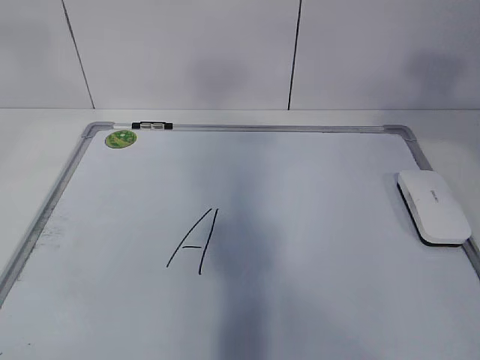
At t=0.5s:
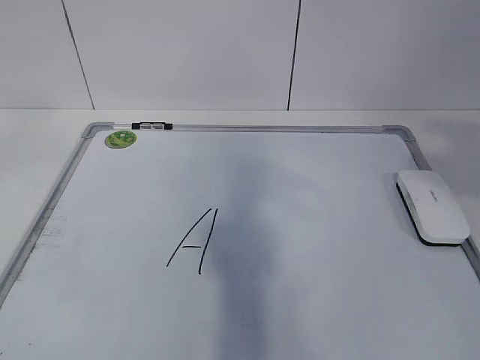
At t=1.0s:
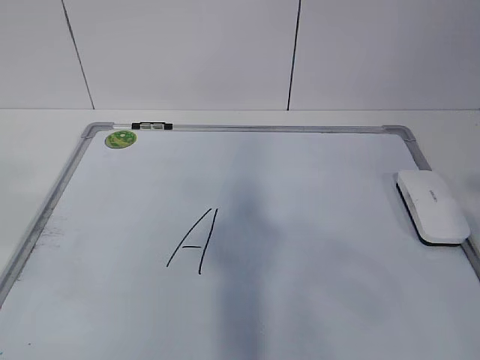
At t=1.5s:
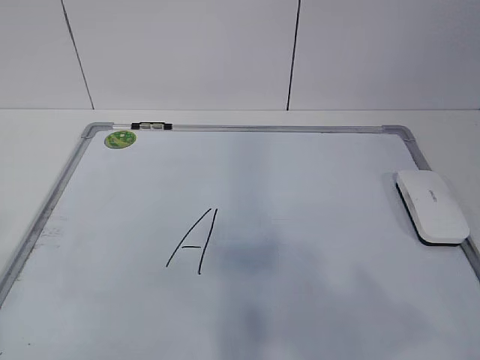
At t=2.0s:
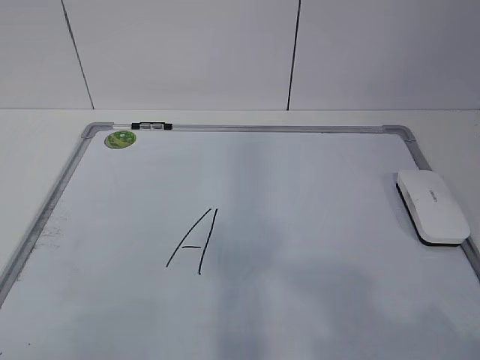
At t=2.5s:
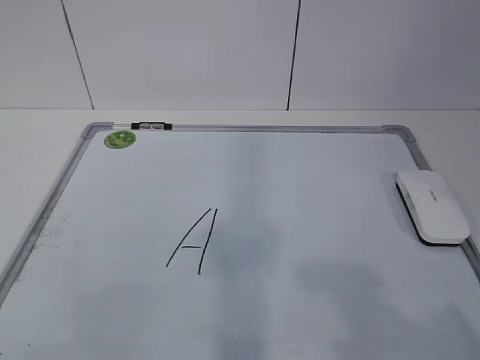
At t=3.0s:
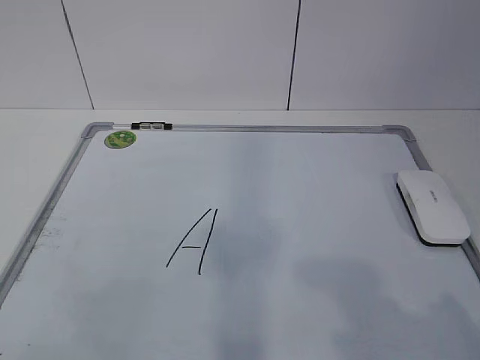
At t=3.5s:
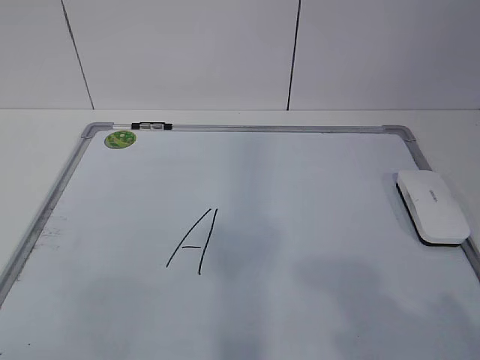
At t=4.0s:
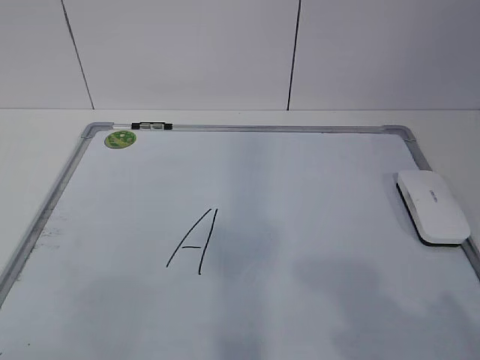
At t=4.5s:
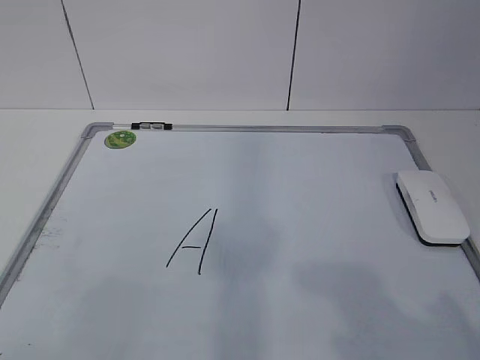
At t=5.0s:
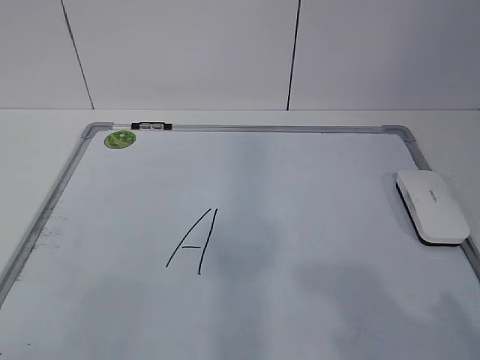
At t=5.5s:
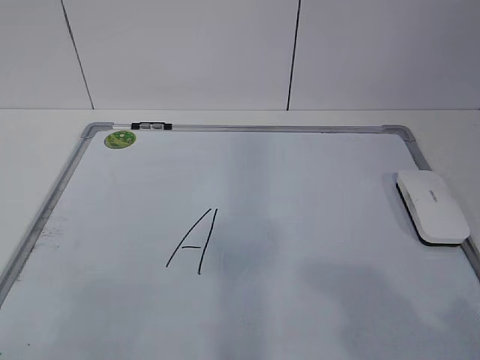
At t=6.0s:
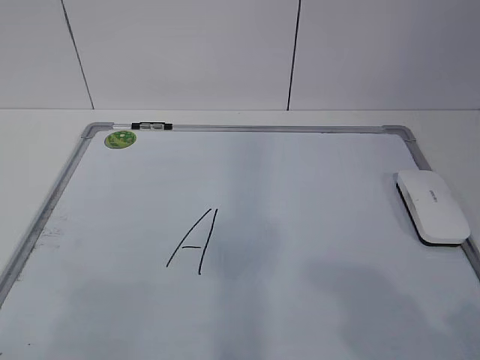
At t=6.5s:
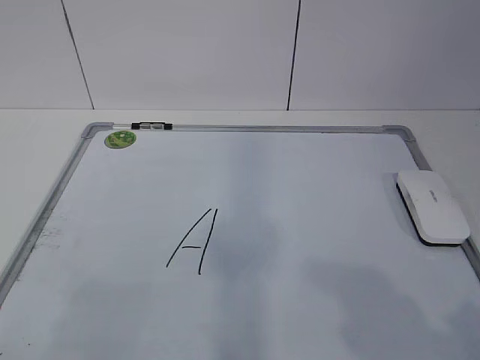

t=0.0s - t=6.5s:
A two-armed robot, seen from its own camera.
Task of the whole recording: pick up the eraser on the blackboard and erase the letter "a".
t=0.0s - t=2.0s: The grippers both shift backward and downward by roughly 30 cm.

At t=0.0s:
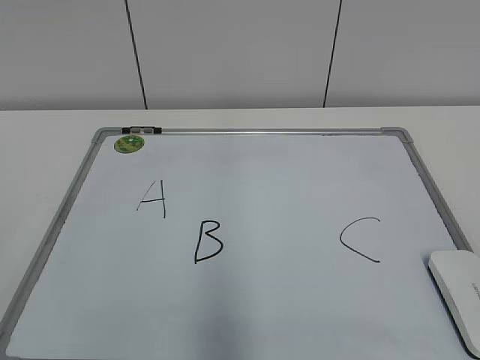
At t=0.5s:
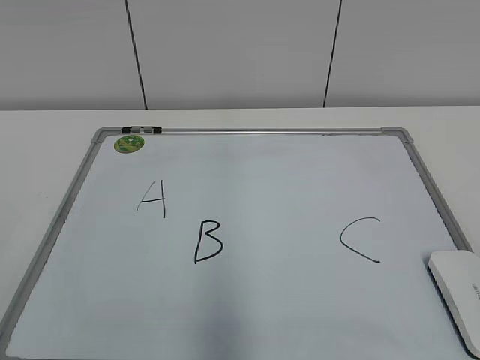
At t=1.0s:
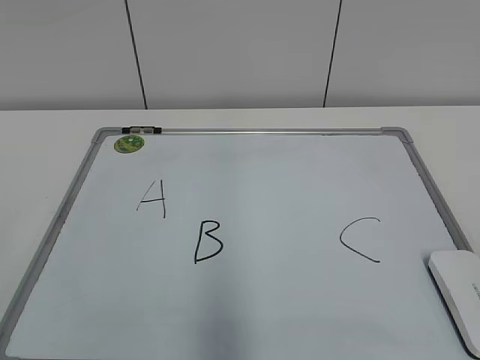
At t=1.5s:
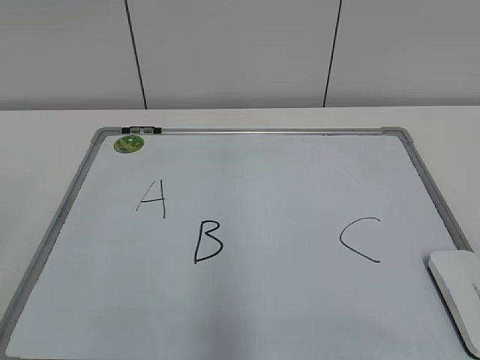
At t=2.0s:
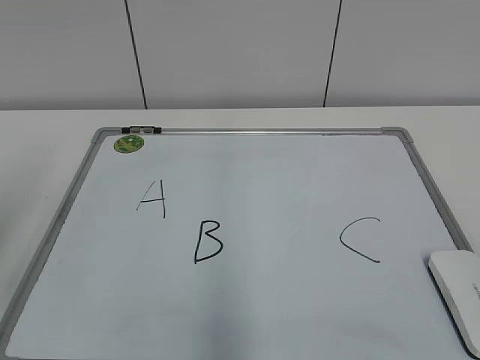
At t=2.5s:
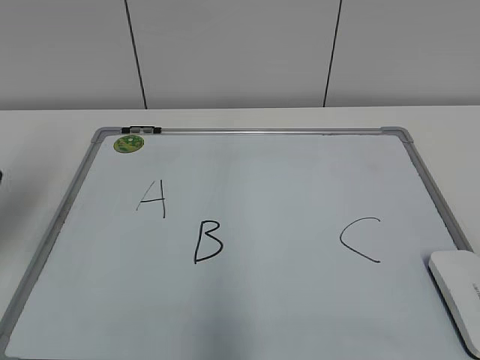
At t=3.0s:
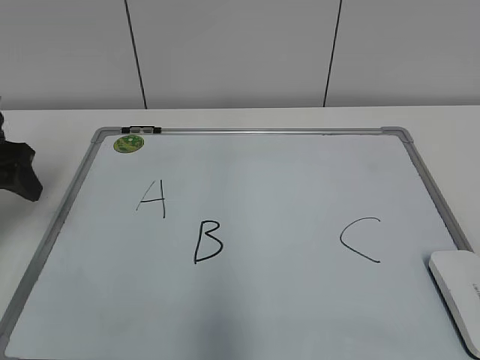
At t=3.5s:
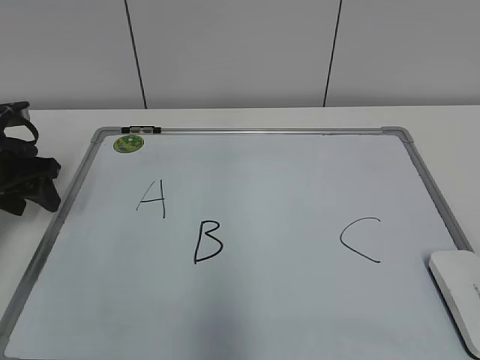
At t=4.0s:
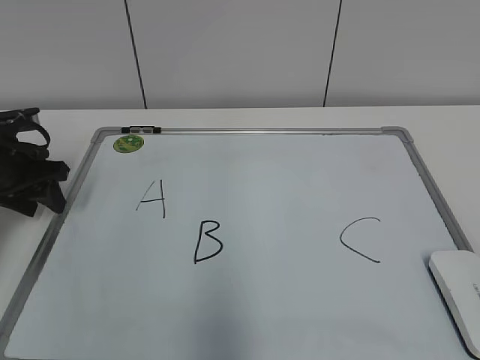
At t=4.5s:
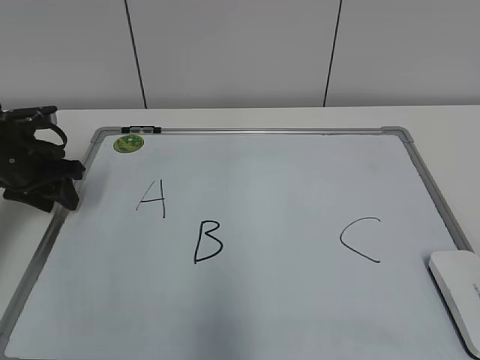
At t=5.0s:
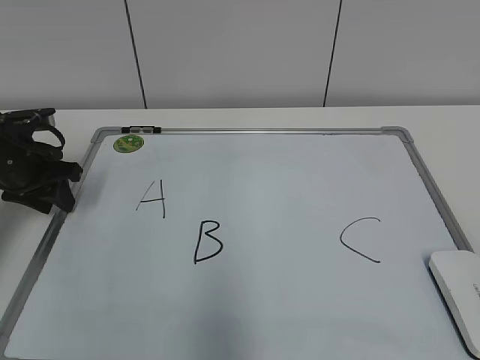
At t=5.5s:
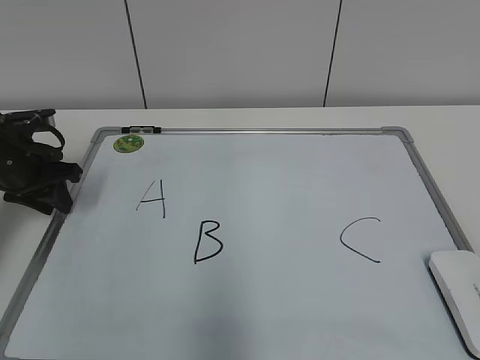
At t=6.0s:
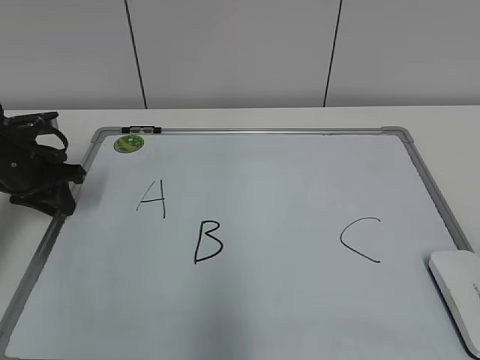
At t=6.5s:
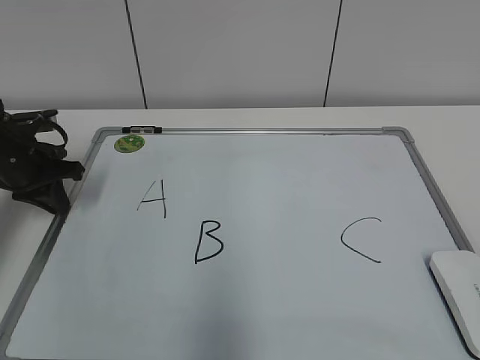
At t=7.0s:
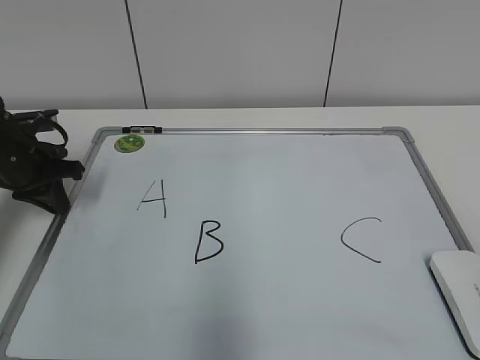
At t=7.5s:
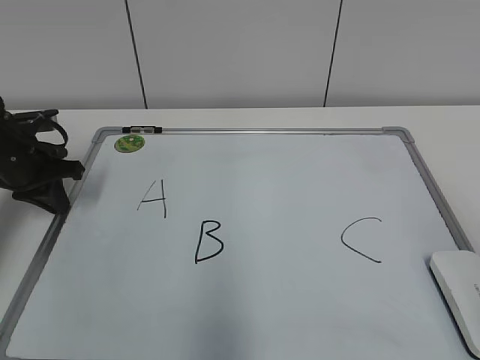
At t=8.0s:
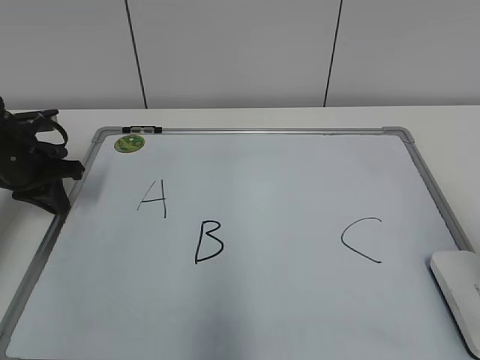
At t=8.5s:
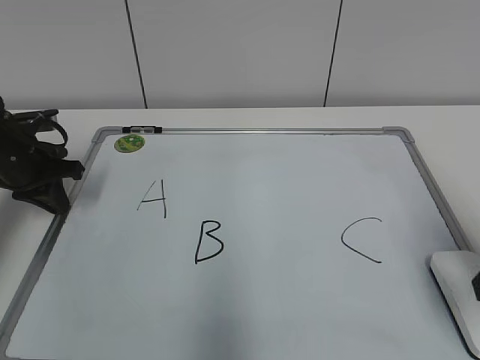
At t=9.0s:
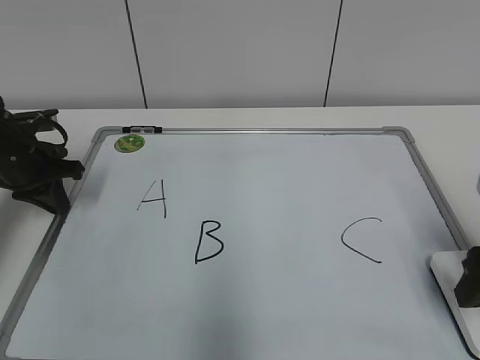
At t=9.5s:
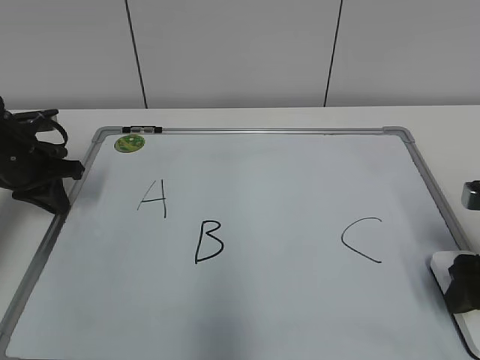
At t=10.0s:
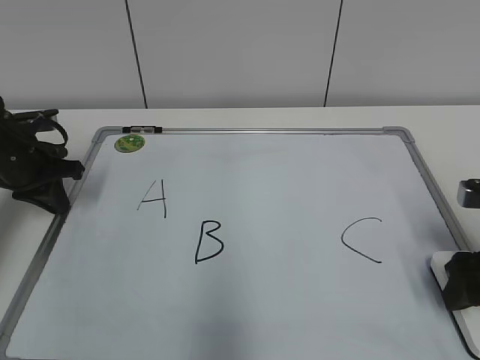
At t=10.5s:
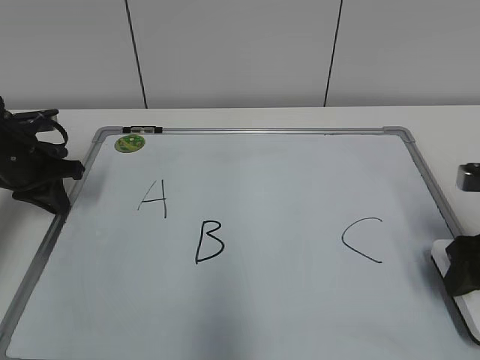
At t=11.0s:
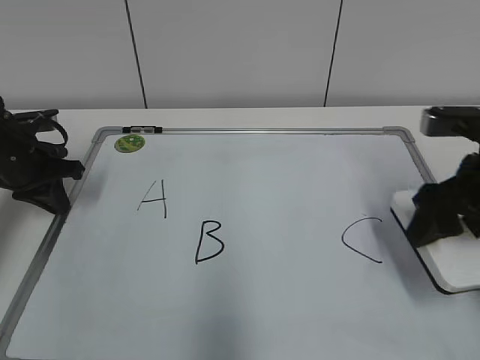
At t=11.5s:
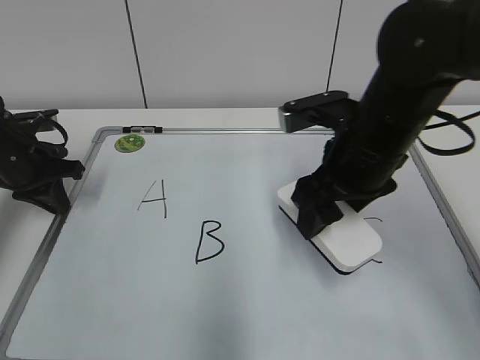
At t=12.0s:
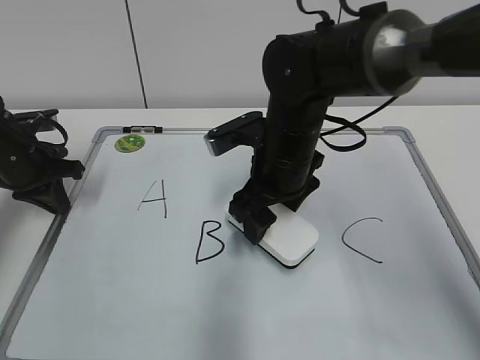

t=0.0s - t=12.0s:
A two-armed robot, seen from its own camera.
Task of the whole recording: pick up the eraser on the blackboard and erase the letter "B".
Step, t=0.0s - t=6.0s: Hold the drawing board steady with your left hand.
t=2.0s - t=4.0s: The left gripper travels forward and downward by some 30 cm, and closes.
t=4.0s - t=6.0s: There are only small adjustments of the grippers.
t=8.0s - t=10.0s: The right gripper is displaced forward and downward by approximately 15 cm.
t=10.0s - t=12.0s: The right gripper moves to the left and forward, about 25 cm.

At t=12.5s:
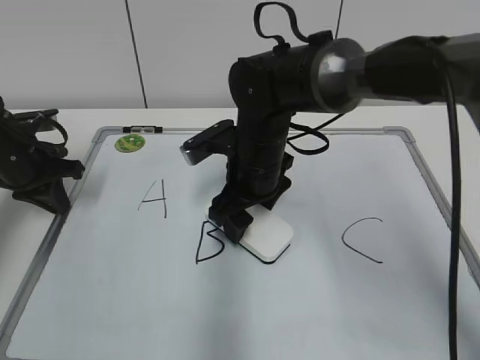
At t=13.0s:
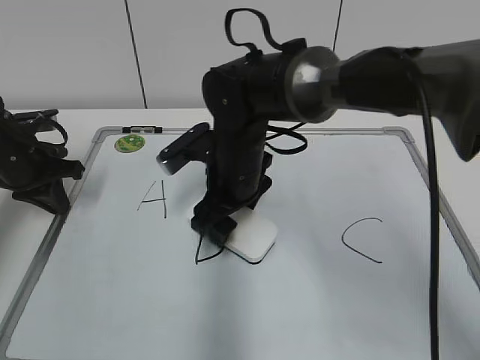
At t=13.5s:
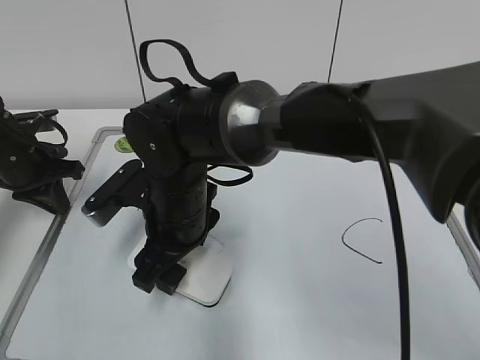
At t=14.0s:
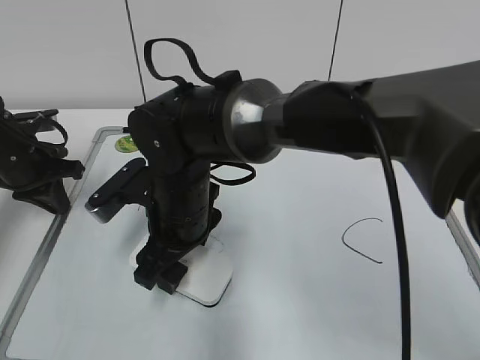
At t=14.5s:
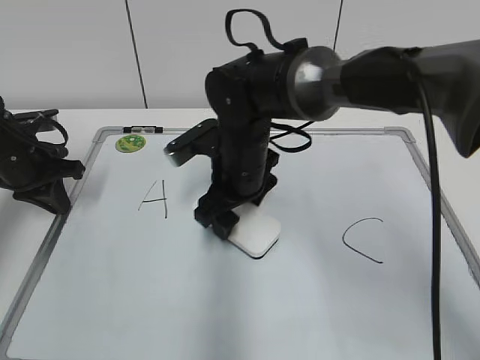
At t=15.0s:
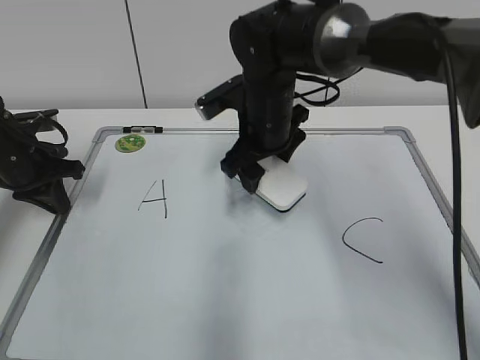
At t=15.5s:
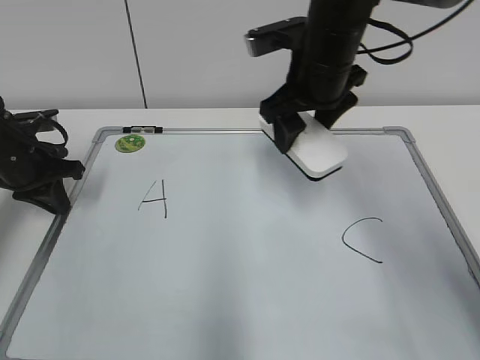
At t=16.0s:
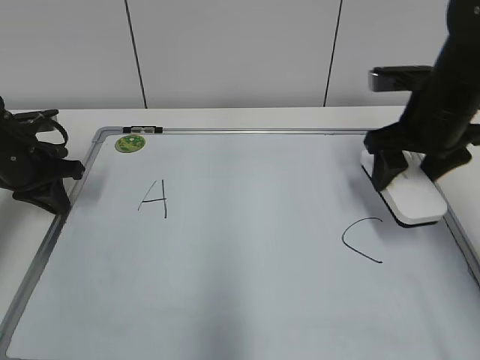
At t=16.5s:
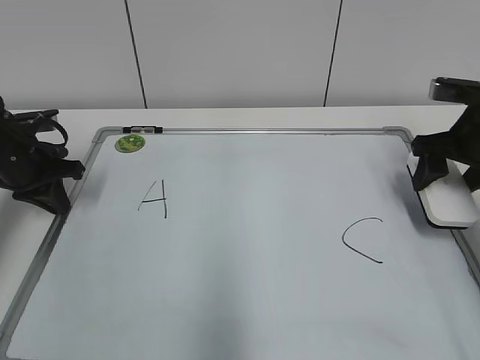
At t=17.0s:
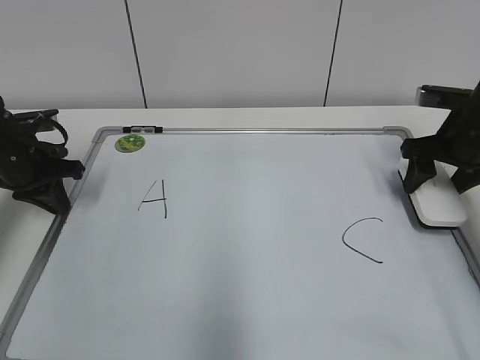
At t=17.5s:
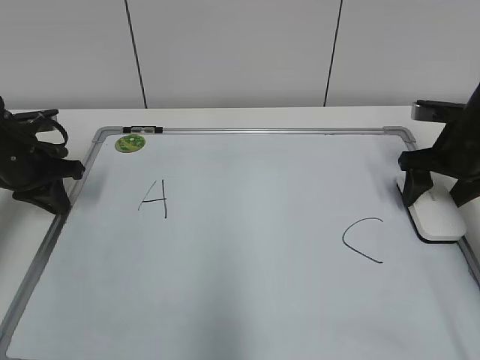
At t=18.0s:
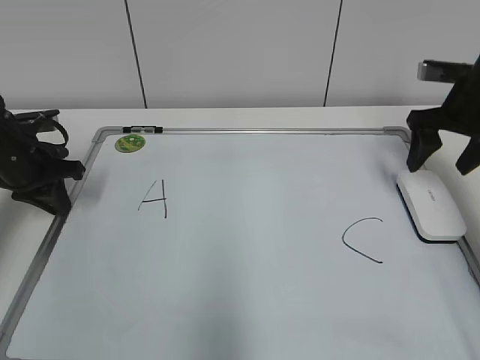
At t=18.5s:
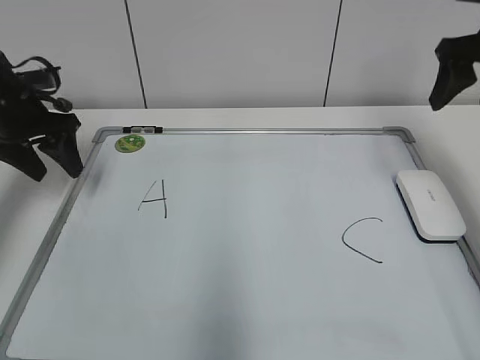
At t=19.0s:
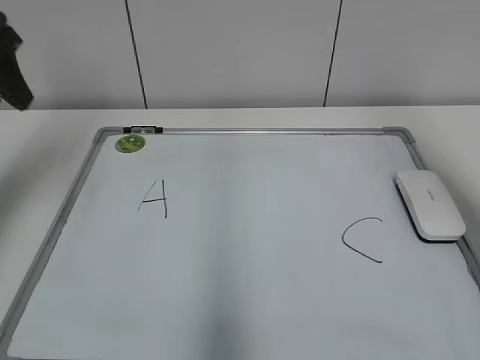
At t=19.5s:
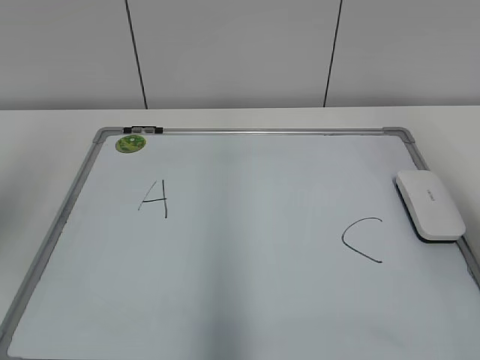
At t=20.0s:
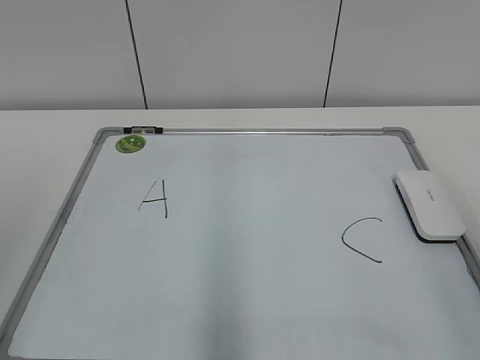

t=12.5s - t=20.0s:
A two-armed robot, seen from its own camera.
Task of the whole recording: pick up the eraser on the blackboard and erase the letter "B".
Step, t=14.5s - t=17.0s: Put down the eraser with your right hand.
t=12.5s - t=14.5s: The right gripper reaches about 10 cm to the left, then returns.
t=14.5s - t=16.5s: The right gripper goes some 30 cm to the right.
t=16.5s - t=18.0s: The grippers move only a little.
t=18.0s - t=20.0s: Both grippers travel together backward and upward, about 35 cm. The left gripper opens.
